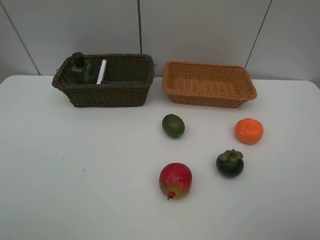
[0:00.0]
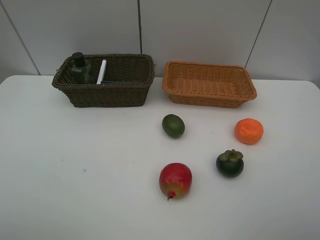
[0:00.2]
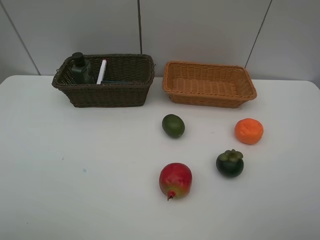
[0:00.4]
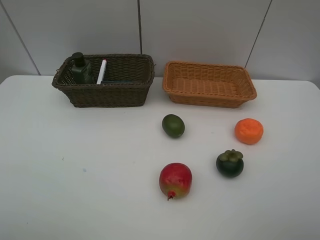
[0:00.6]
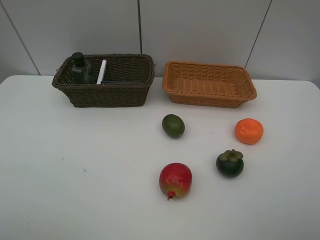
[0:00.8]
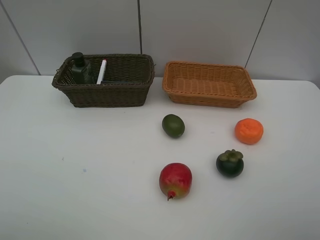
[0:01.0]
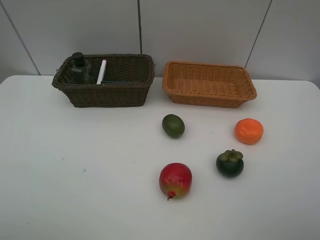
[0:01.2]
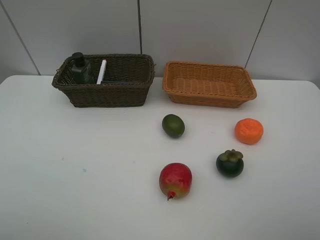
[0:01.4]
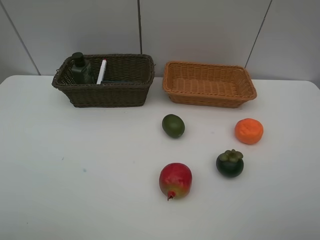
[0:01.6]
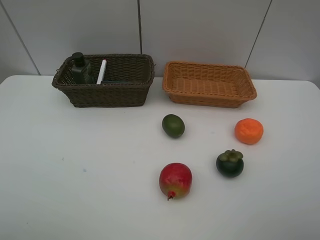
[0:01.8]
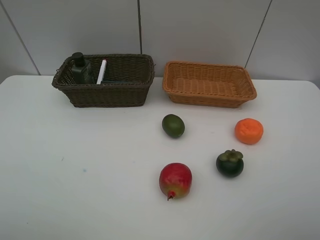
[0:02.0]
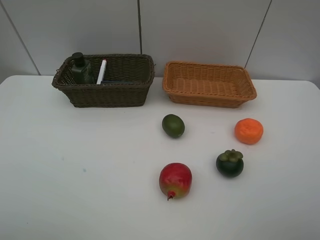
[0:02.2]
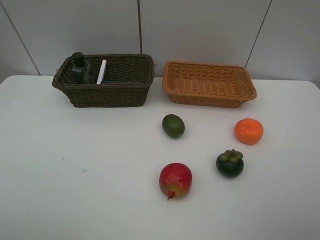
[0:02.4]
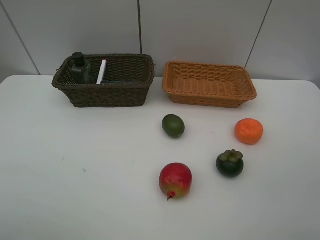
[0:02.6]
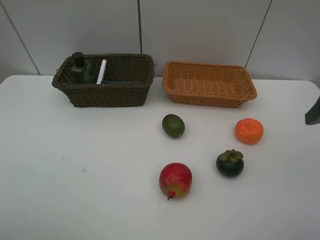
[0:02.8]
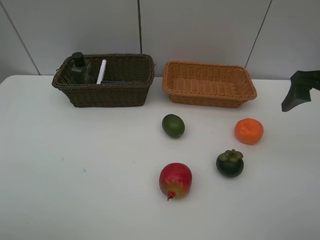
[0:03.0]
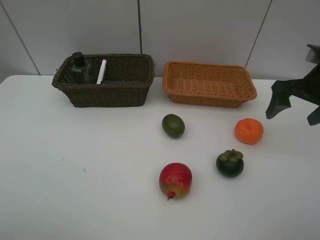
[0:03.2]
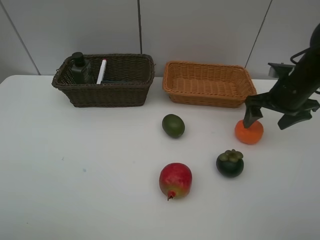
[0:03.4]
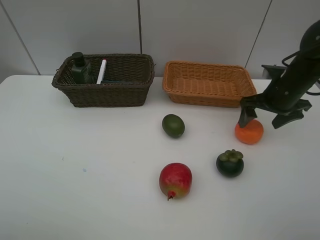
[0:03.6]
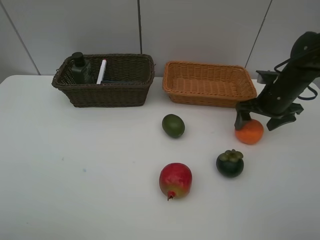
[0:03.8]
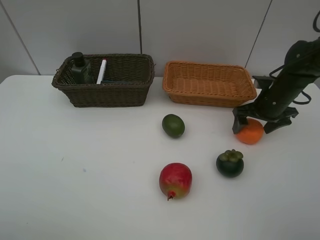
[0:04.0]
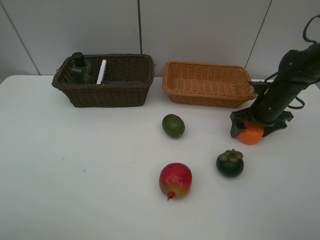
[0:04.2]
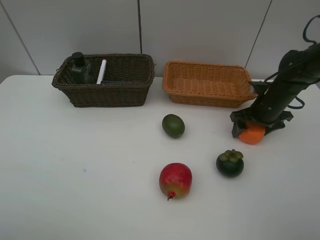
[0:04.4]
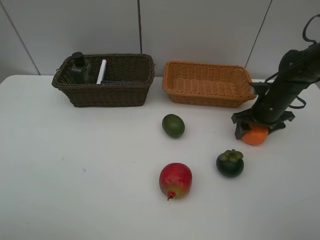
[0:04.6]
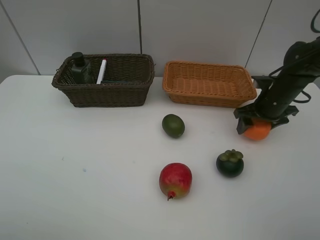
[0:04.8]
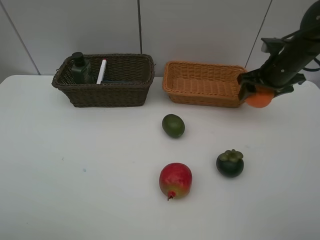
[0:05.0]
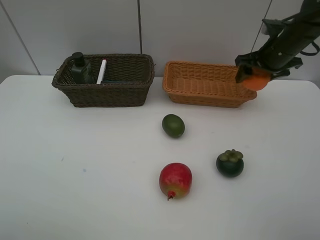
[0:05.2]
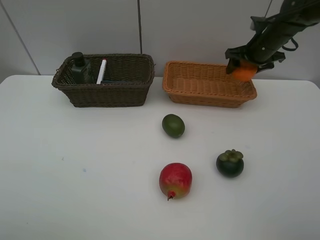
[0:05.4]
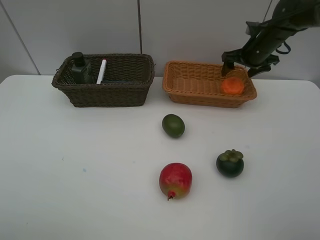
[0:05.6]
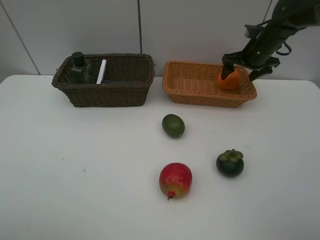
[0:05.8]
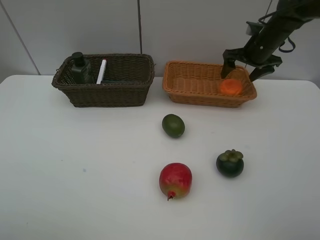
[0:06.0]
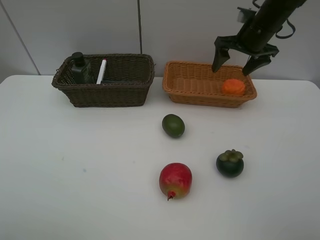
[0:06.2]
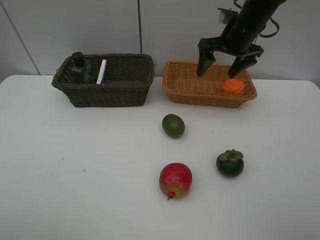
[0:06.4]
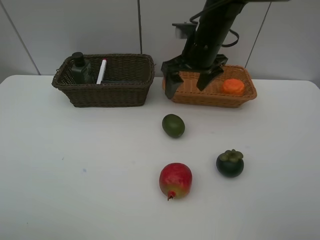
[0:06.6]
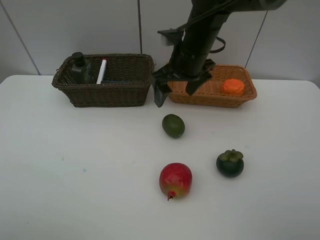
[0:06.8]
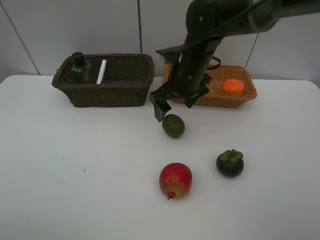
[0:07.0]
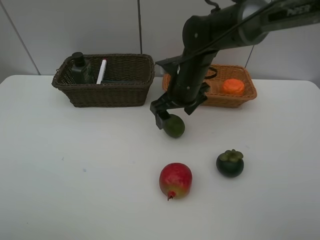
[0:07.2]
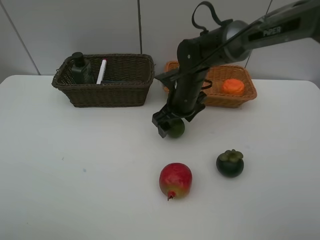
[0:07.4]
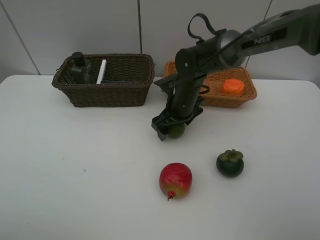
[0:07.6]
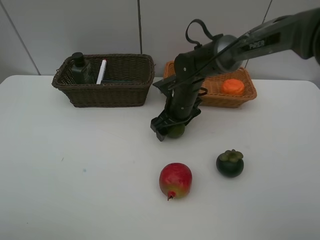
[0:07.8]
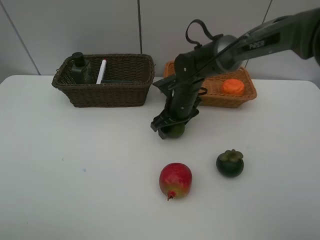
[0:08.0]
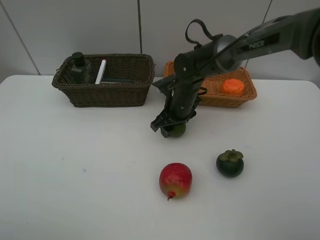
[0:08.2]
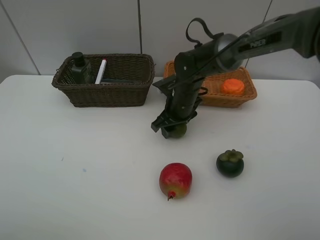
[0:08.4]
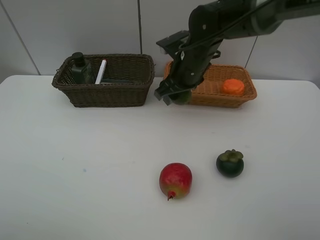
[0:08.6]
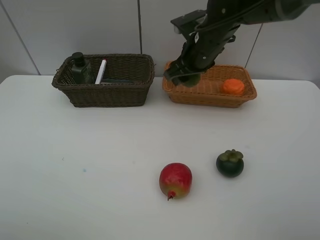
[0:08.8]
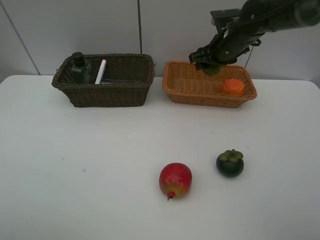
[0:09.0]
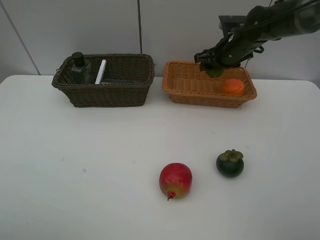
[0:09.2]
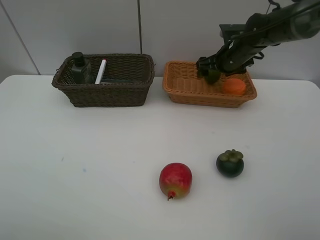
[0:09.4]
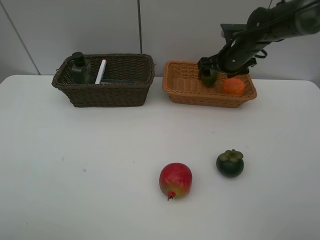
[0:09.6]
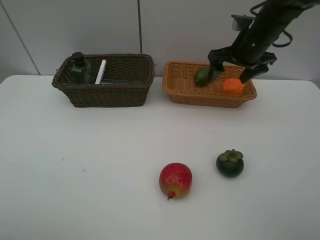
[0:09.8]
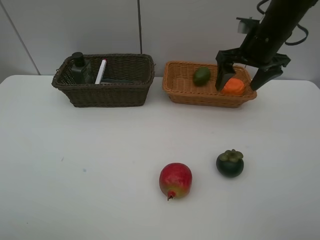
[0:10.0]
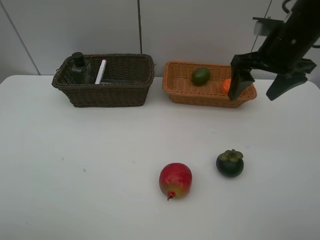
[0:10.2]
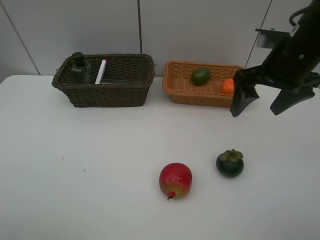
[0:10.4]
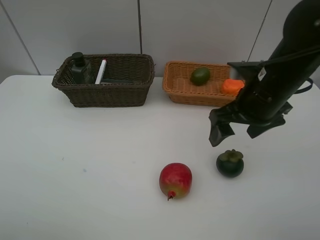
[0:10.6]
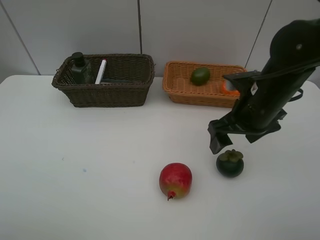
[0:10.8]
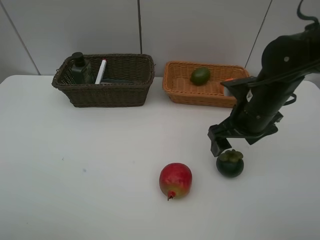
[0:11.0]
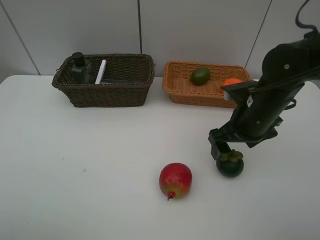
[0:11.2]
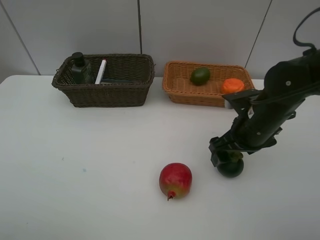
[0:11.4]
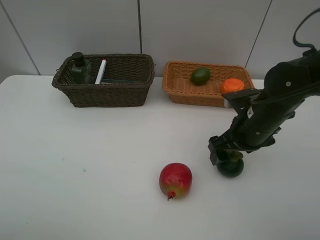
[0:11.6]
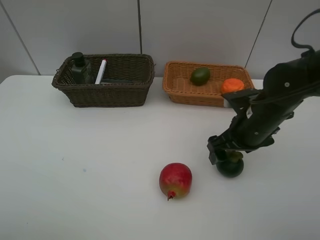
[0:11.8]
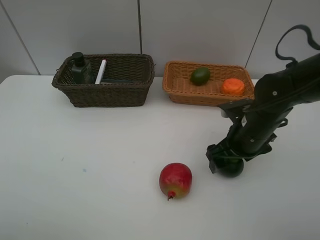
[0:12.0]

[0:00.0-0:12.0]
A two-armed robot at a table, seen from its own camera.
Task of the whole recording: Place multiple objects separately in different baskets.
Step, 0:00.0 to 0:04.8: Pick up the orange with right gripper.
Step, 0:05.0 to 0:05.6: Place the orange in the light basket with right gripper.
Step, 0:05.8 to 0:08.4: Pick up the lime with right gripper.
Step, 0:08.6 to 0:09.6: Place the lime in the light basket with right gripper.
0:01.6 to 0:03.0: The right gripper is displaced forward by approximately 25 cm.
0:03.0 to 0:04.4: The right gripper travels downward and forward by roughly 20 cm, and closes its fingers.
0:04.4 to 0:06.0: The right gripper travels upward and forward by approximately 15 cm, and opens.
0:06.0 to 0:07.6: The right gripper travels to the left, downward and backward by roughly 25 cm.
0:07.6 to 0:09.0: The right gripper moves to the right, upward and forward, about 15 cm, and closes.
0:09.0 to 0:10.4: The right gripper is displaced backward by approximately 15 cm, and opens its fingers.
0:10.4 to 0:12.0: The right gripper travels downward by about 15 cm.

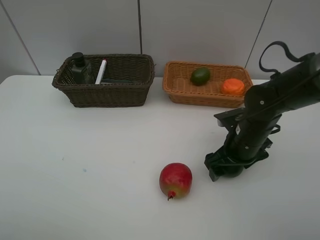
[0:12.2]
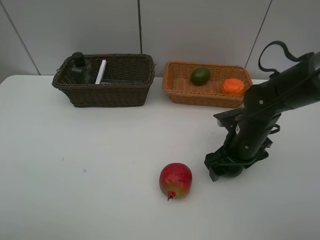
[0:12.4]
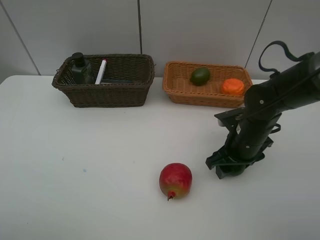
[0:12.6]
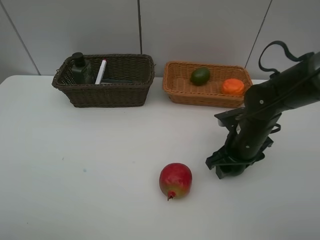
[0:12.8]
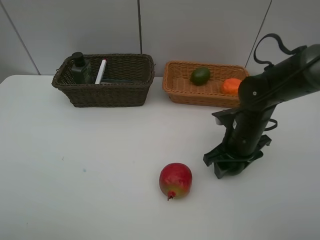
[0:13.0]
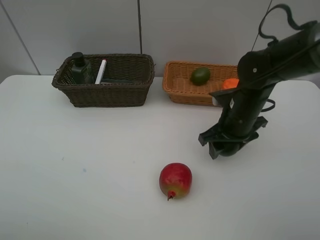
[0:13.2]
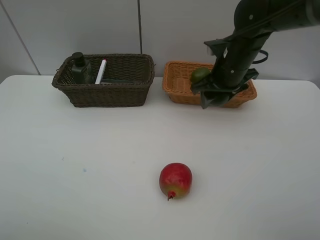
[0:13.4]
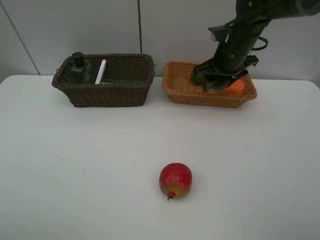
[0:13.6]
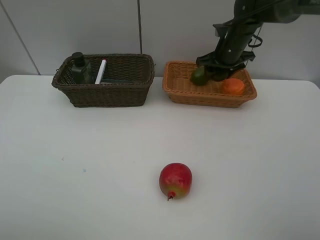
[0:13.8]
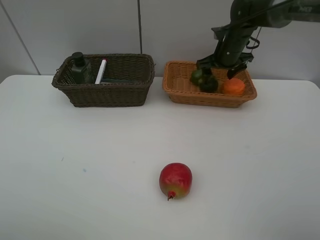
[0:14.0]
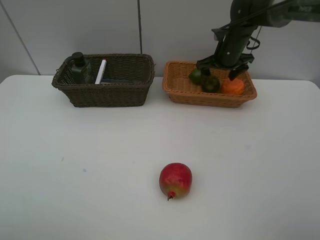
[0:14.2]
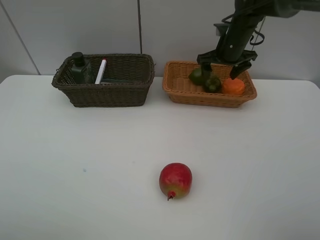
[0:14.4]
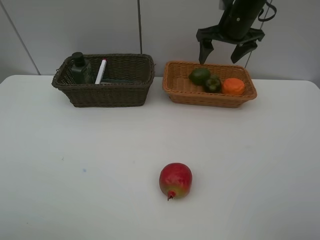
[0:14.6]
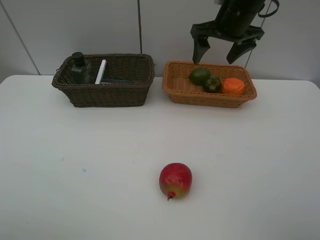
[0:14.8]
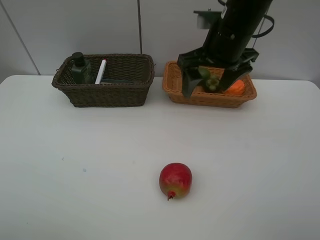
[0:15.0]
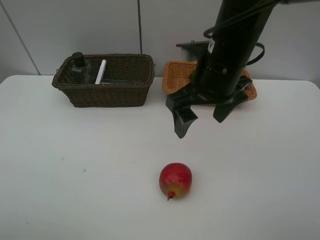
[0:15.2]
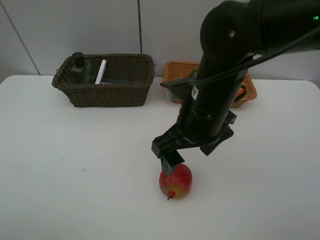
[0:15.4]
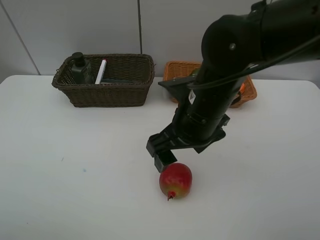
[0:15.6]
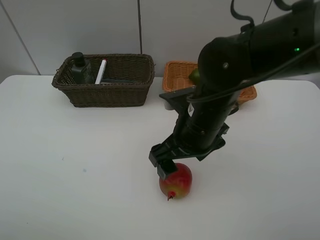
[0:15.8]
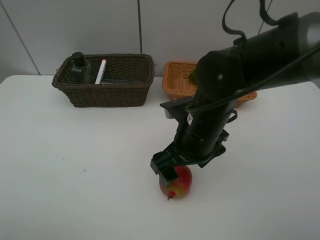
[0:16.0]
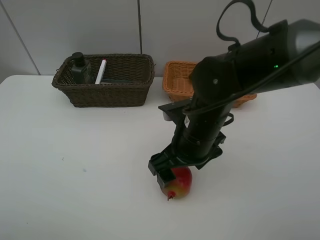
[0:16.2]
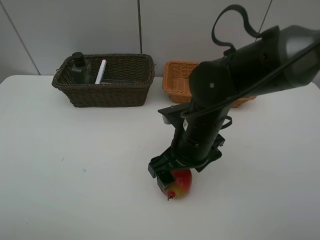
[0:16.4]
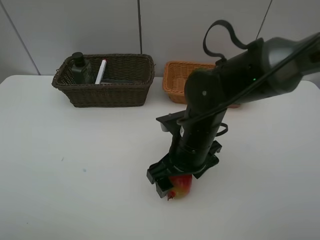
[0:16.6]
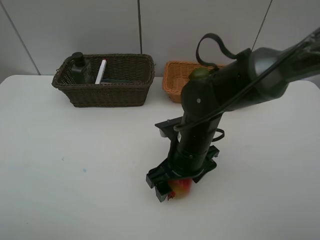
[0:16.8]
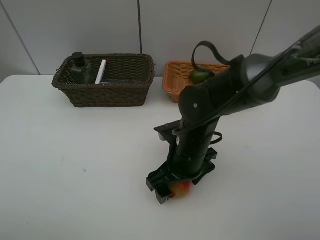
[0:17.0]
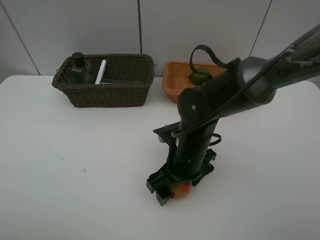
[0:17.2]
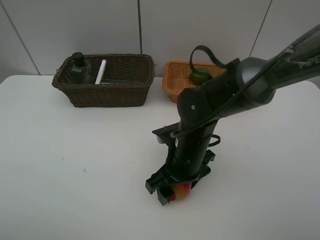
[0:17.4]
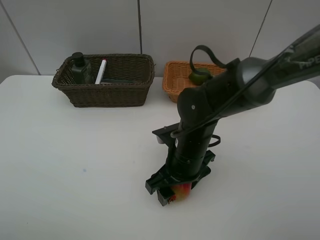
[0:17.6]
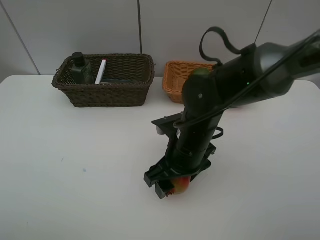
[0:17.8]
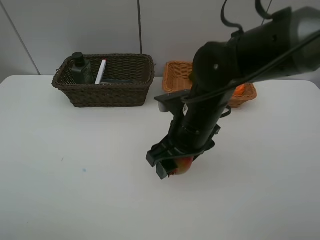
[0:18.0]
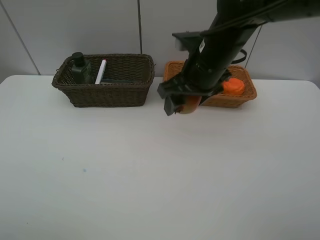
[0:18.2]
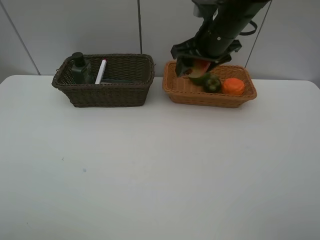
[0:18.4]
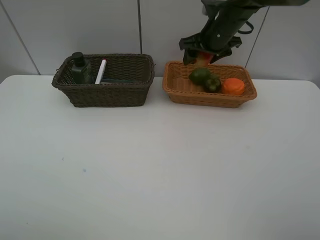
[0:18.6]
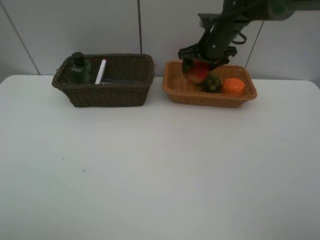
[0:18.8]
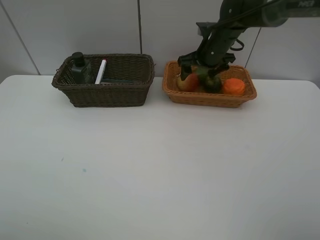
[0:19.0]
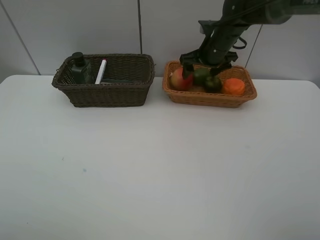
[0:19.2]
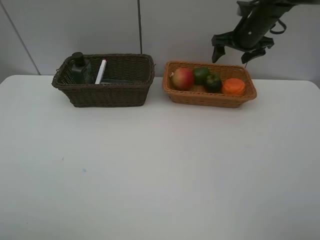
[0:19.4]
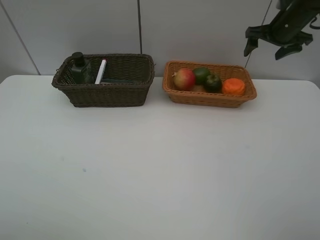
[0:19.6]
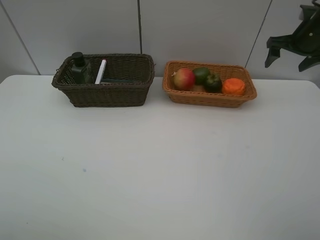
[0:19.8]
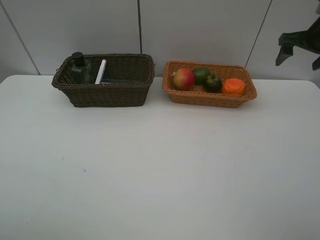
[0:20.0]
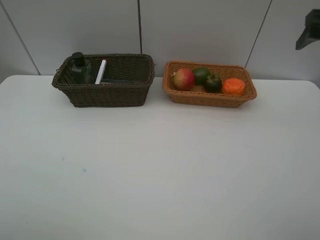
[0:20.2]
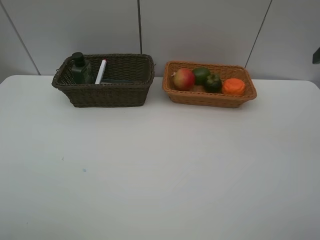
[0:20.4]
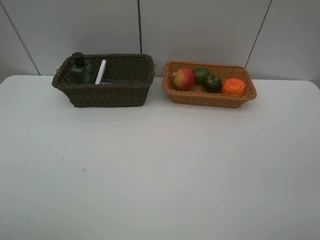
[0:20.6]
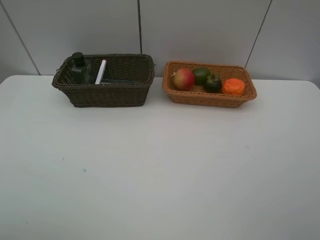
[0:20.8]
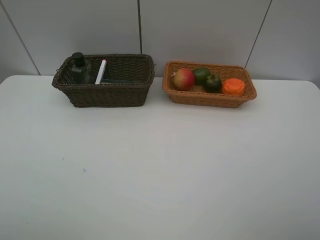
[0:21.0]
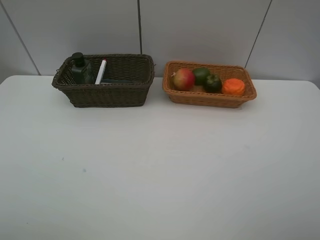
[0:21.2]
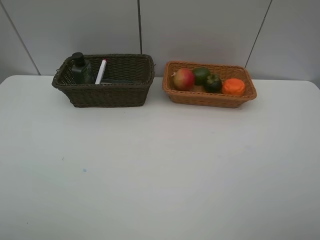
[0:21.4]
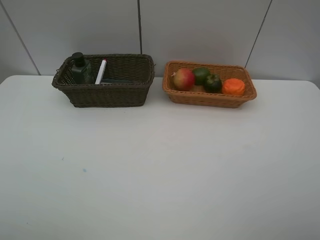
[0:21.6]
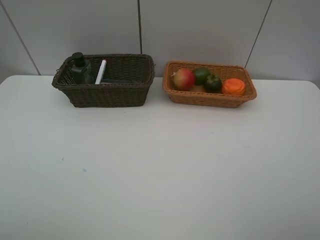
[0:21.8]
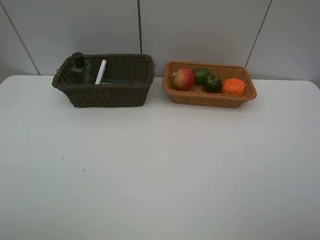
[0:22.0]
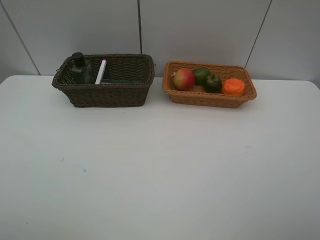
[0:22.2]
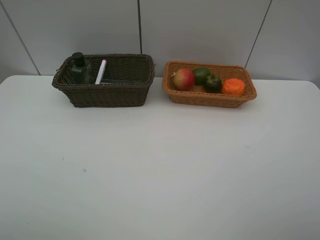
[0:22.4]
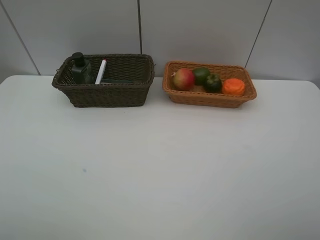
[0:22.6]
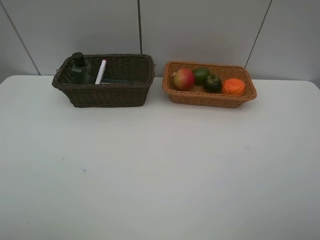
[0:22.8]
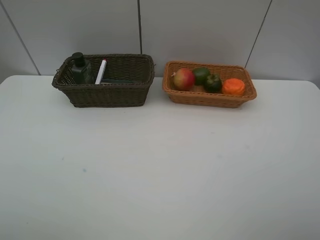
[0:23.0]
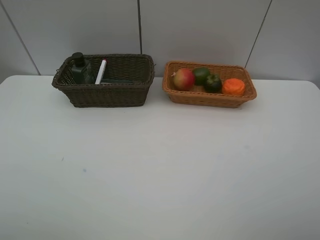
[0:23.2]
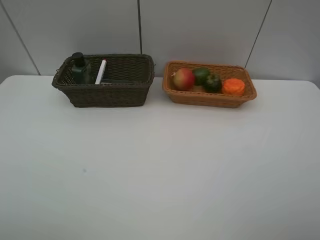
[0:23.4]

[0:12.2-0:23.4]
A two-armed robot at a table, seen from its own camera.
Task of the whole recording: Place multiple objects separately in different baskets.
Step, 0:13.2 to 0:14.2: Place the mangosteen in the light basket with right gripper.
Step, 0:14.4 to 0:17.6: Pick up the pomegranate with right gripper.
Step, 0:17.8 to 0:19.0: Place the pomegranate in the light basket with right gripper.
0:12.2 to 0:13.8: The right gripper heads forward and upward, covering some 25 cm, and closes its fingers.
0:13.8 to 0:15.4: The right gripper travels backward and to the left by some 30 cm, and opens.
0:15.4 to 0:17.0: The right gripper shifts about 10 cm downward.
0:17.0 to 0:18.6: The right gripper travels forward and upward by about 25 cm, and closes up.
0:18.6 to 0:20.2: The right gripper goes some 25 cm to the right, backward and upward, and opens its fingers.
0:20.2 to 0:21.8: The right gripper goes roughly 30 cm backward.
0:21.8 to 0:23.4: Both grippers stay put.
